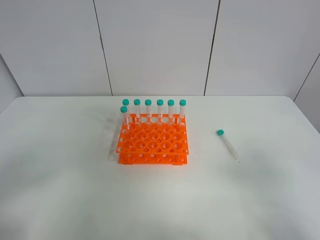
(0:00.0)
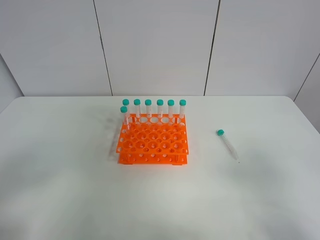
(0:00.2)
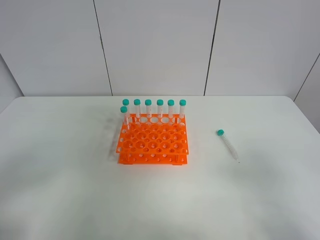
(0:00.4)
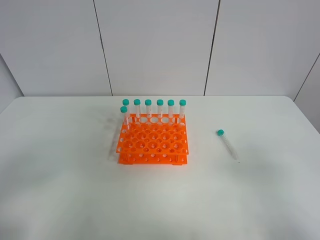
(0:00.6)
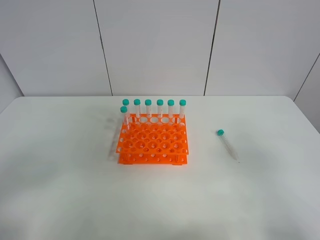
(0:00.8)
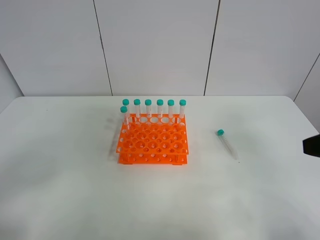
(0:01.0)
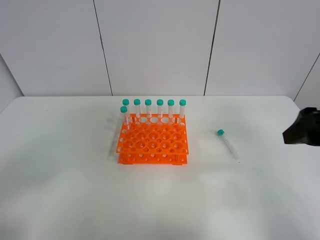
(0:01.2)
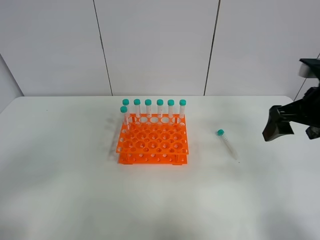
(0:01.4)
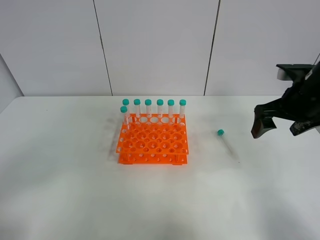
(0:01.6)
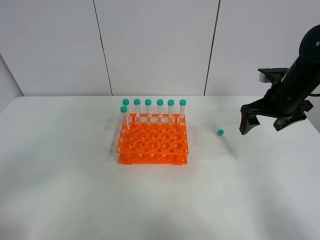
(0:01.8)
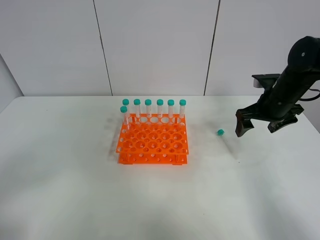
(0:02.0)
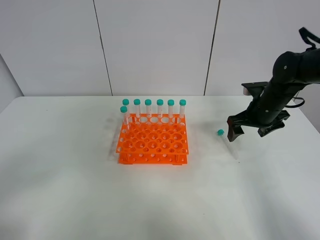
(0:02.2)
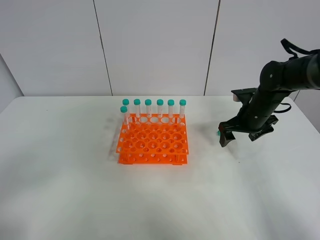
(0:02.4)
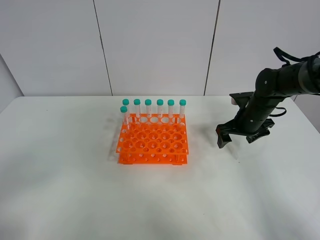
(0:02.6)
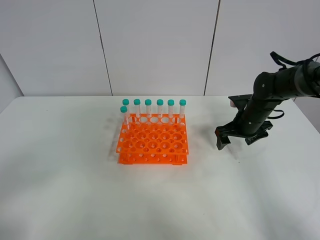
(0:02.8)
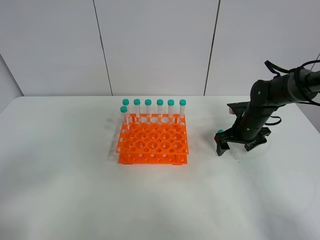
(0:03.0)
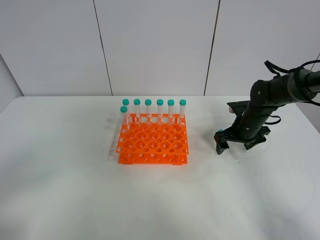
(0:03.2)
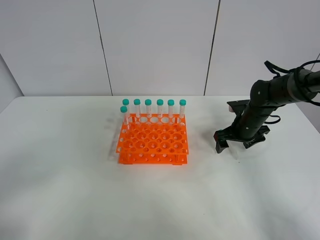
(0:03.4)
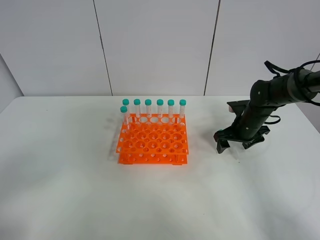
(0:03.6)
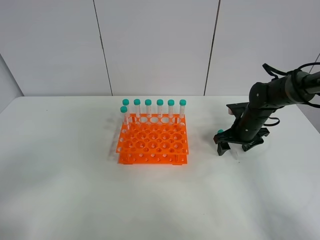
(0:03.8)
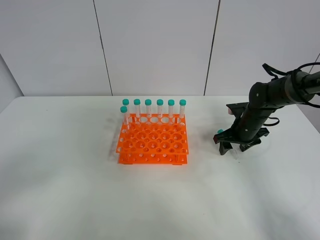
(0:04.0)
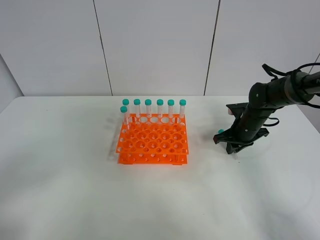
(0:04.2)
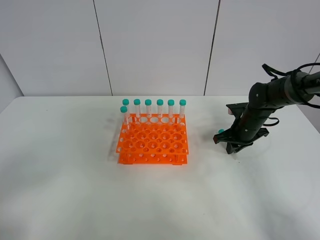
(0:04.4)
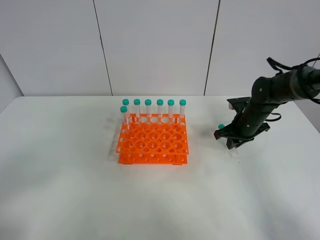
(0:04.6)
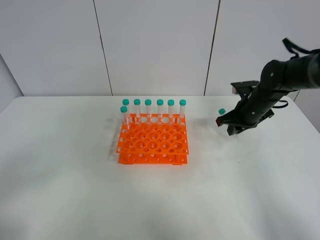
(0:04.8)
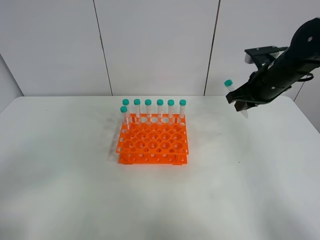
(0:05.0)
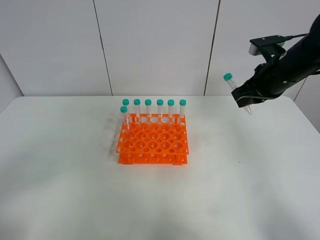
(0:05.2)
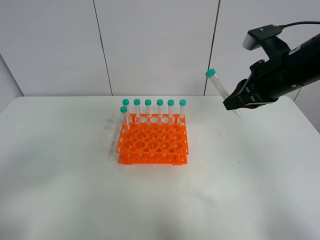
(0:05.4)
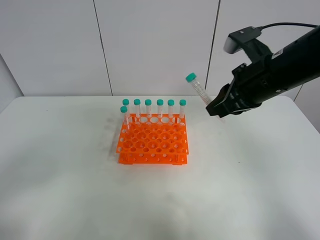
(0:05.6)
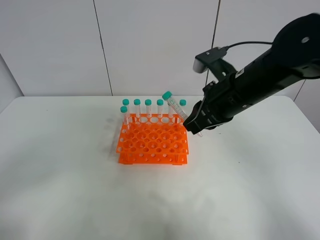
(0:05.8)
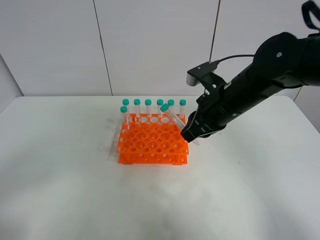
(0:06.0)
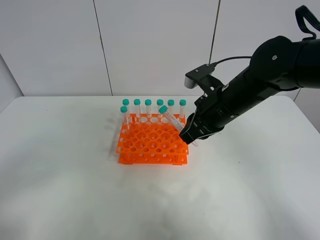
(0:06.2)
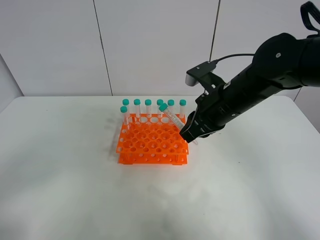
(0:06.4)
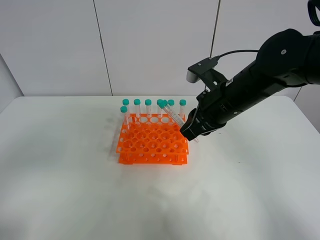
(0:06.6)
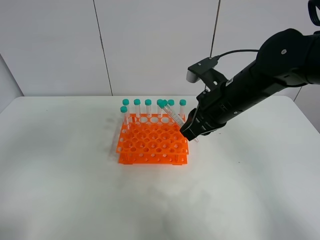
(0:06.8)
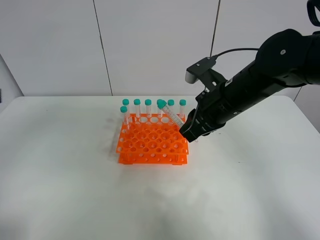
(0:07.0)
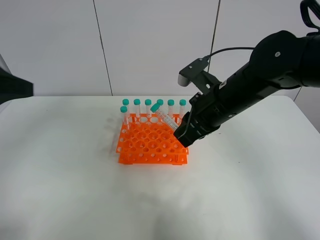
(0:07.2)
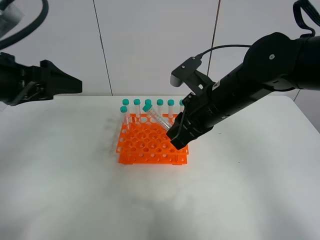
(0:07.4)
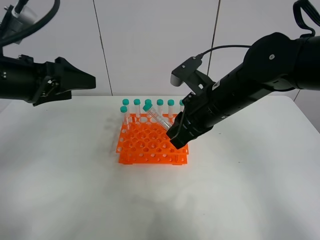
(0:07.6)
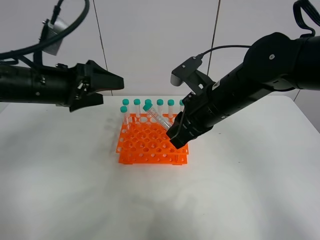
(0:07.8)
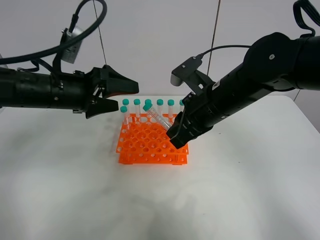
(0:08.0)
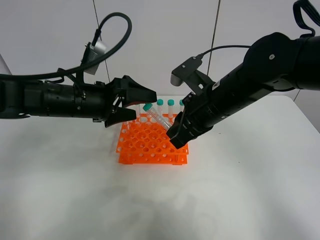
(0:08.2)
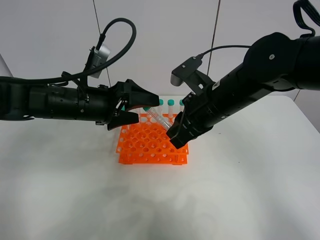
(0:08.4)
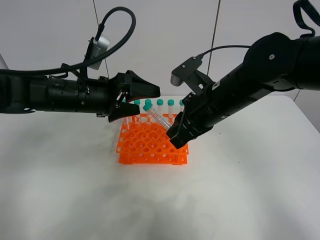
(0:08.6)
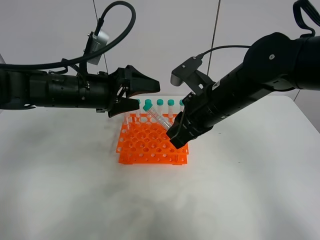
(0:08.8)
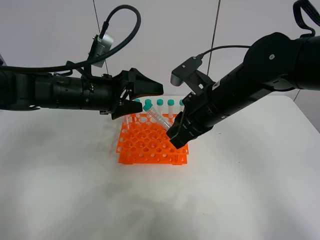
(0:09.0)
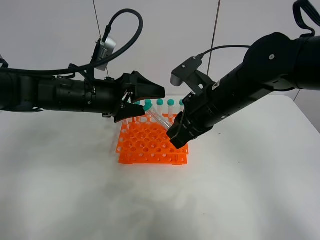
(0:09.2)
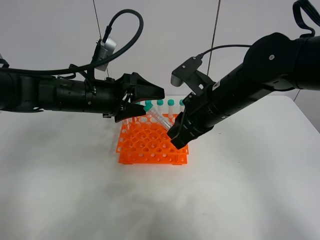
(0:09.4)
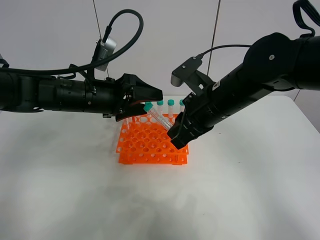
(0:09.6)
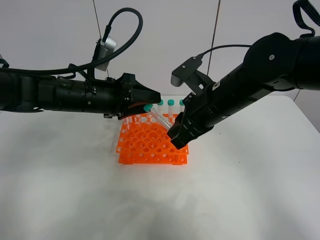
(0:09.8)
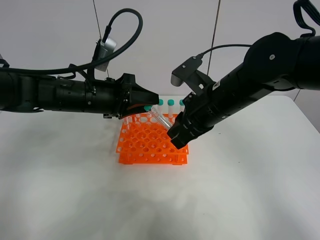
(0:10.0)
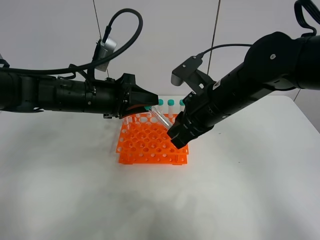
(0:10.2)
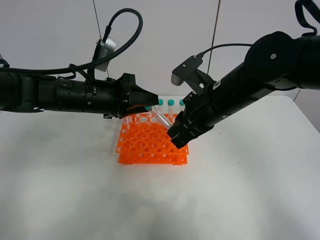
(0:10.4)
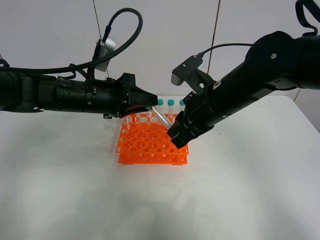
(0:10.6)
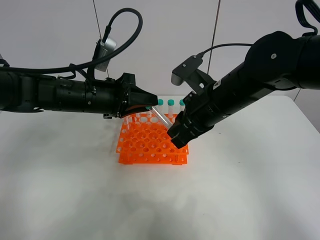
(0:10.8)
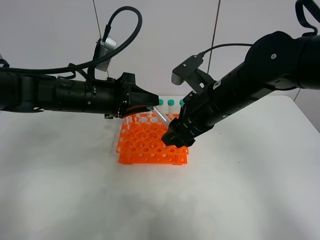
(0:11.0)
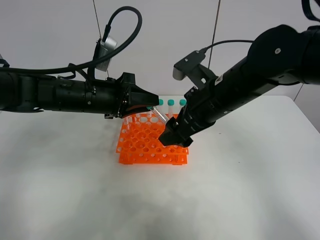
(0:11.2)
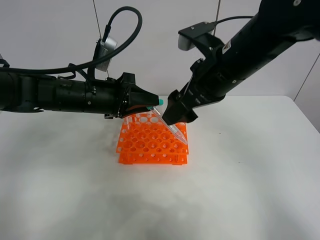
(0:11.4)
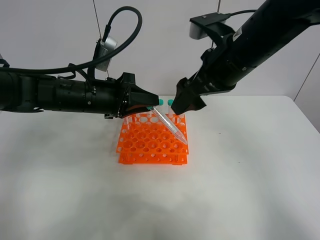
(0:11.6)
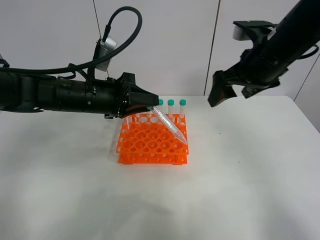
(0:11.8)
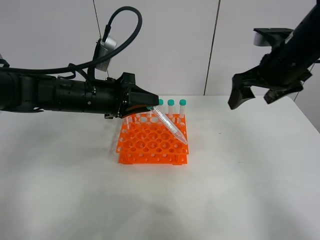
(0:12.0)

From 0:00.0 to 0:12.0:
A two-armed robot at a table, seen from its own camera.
Task of the whole recording: Put the test tube on the table back onto the test tube rack.
Step, from 0:00.0 to 0:04.8: Pick up the test tube with the right gripper.
Step, from 0:05.0 to 0:11.6: Move the test tube from the right gripper to the left gripper.
From 0:00.0 to 0:01.6: The right gripper shifts about 30 cm forward.
From 0:01.6 to 0:03.0: The right gripper moves downward and forward, approximately 20 cm.
From 0:03.0 to 0:04.4: The right gripper closes its fingers.
From 0:04.4 to 0:06.0: The right gripper moves upward, to the left and backward, some 20 cm.
From 0:06.0 to 0:07.6: The left gripper heads forward, covering some 25 cm.
From 0:07.6 to 0:09.0: The left gripper moves to the right and downward, some 10 cm.
From 0:09.0 to 0:10.4: The left gripper closes its fingers.
From 0:10.4 to 0:12.0: The right gripper travels to the right and upward by some 15 cm, and opens up.

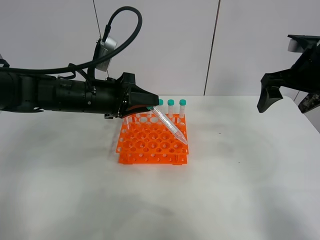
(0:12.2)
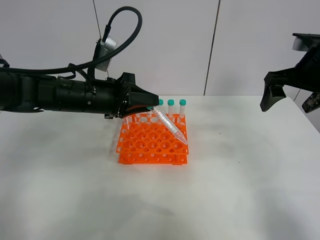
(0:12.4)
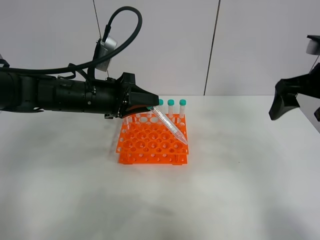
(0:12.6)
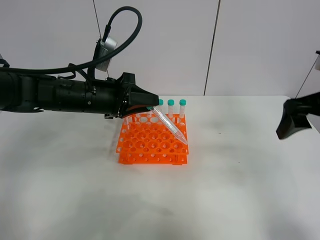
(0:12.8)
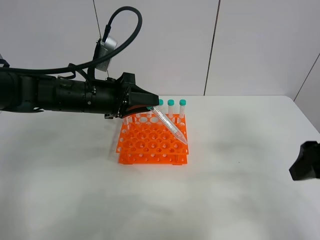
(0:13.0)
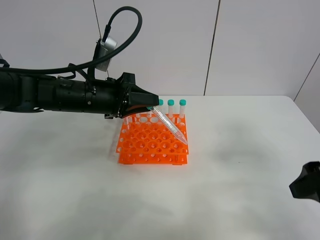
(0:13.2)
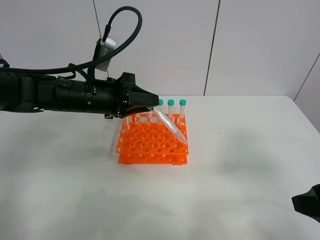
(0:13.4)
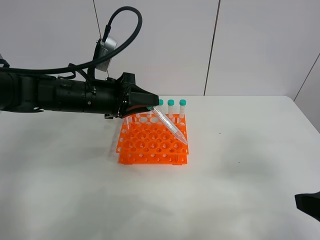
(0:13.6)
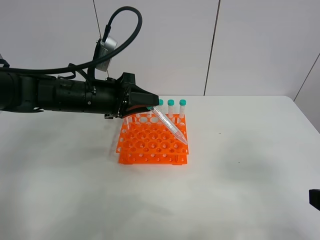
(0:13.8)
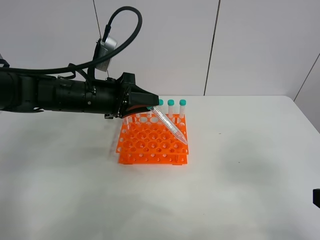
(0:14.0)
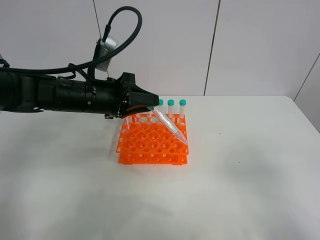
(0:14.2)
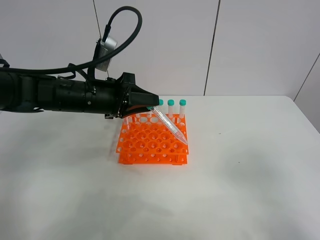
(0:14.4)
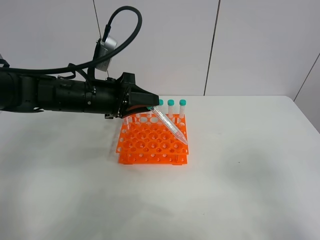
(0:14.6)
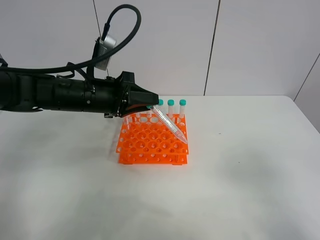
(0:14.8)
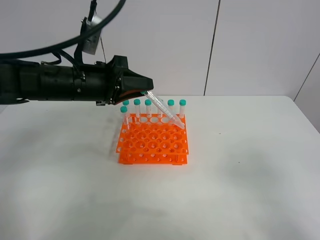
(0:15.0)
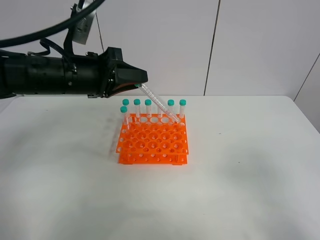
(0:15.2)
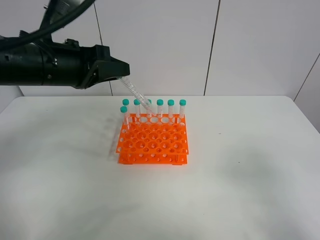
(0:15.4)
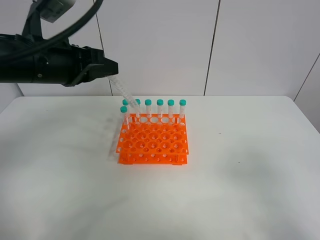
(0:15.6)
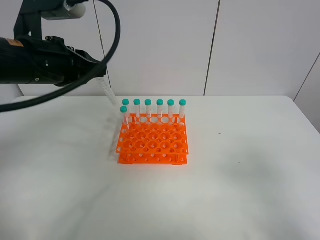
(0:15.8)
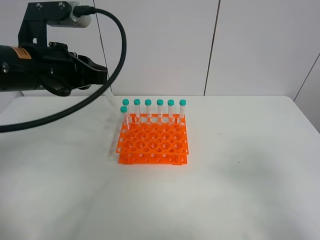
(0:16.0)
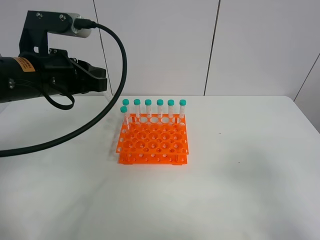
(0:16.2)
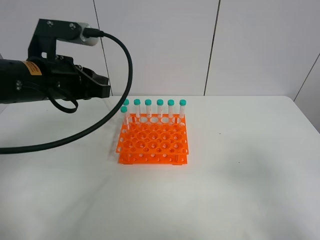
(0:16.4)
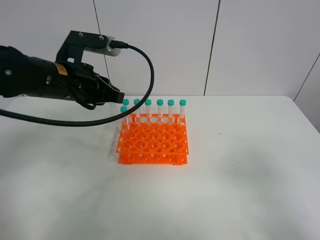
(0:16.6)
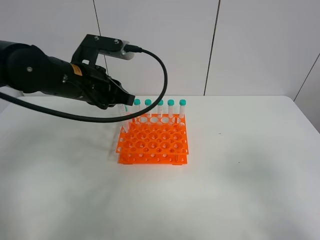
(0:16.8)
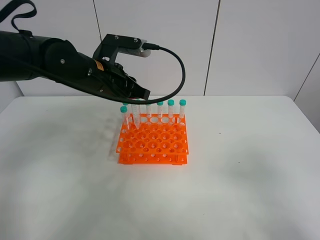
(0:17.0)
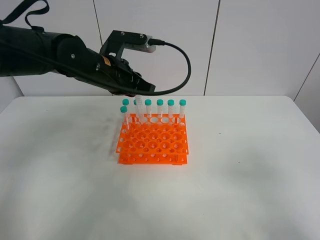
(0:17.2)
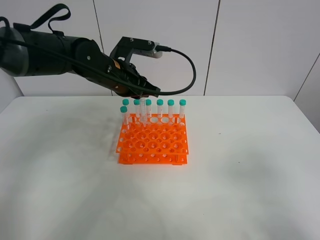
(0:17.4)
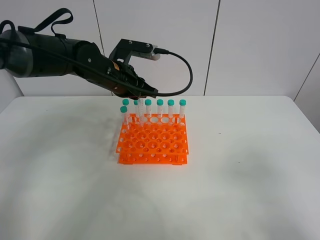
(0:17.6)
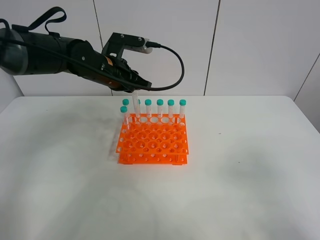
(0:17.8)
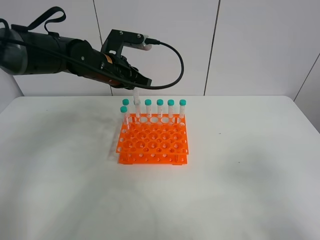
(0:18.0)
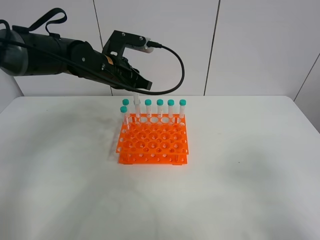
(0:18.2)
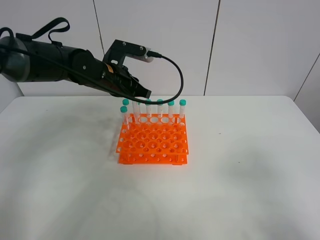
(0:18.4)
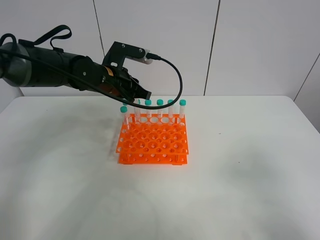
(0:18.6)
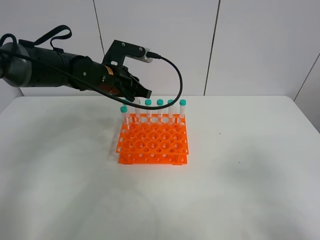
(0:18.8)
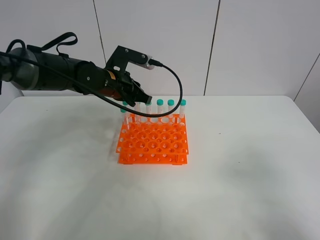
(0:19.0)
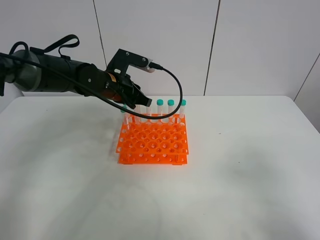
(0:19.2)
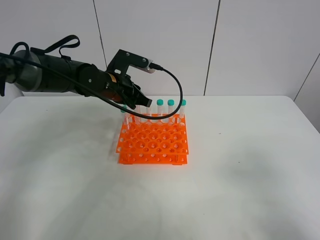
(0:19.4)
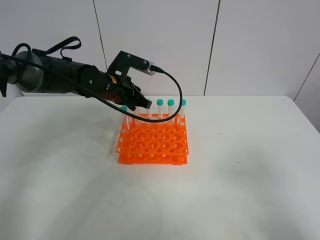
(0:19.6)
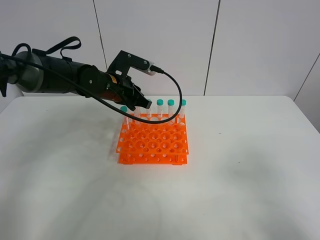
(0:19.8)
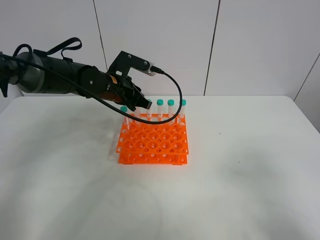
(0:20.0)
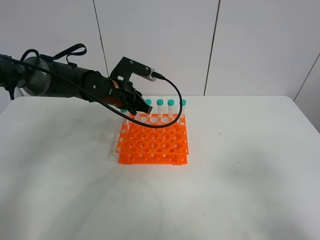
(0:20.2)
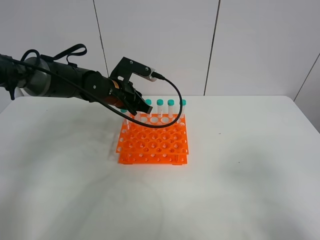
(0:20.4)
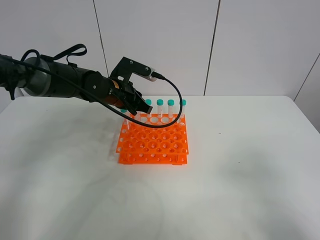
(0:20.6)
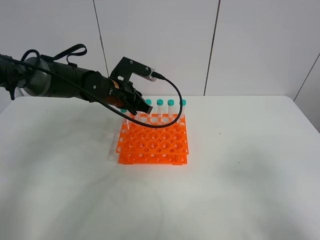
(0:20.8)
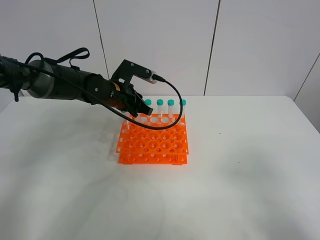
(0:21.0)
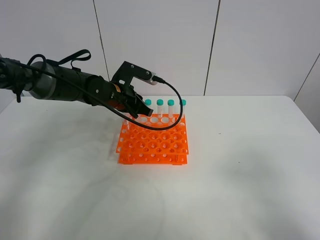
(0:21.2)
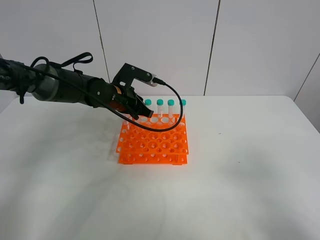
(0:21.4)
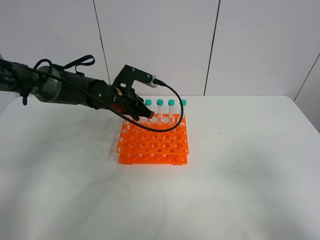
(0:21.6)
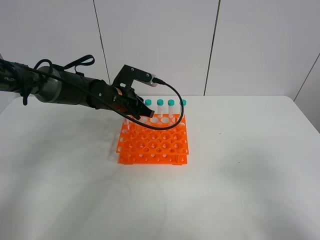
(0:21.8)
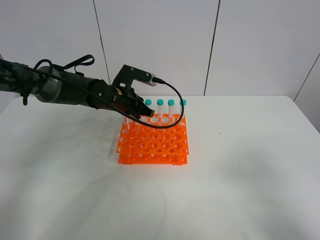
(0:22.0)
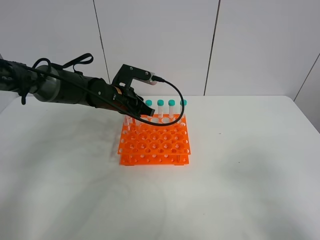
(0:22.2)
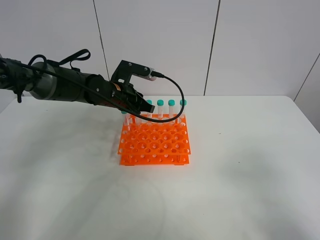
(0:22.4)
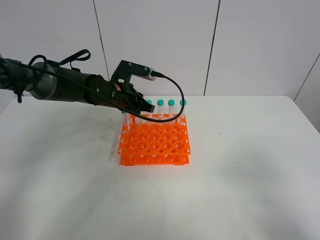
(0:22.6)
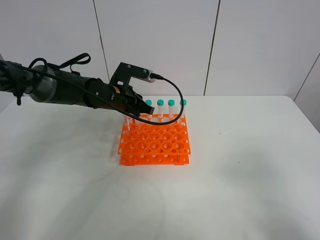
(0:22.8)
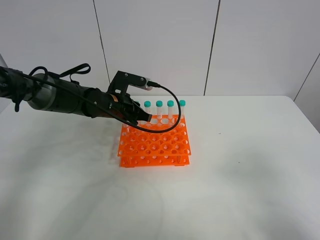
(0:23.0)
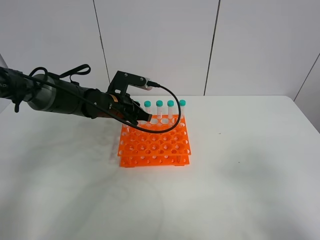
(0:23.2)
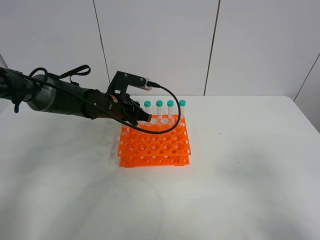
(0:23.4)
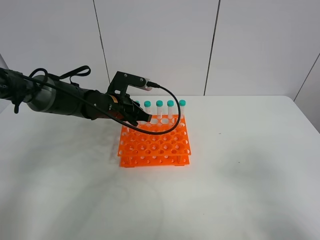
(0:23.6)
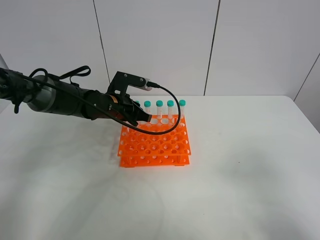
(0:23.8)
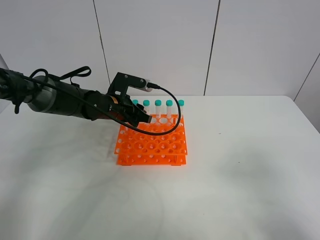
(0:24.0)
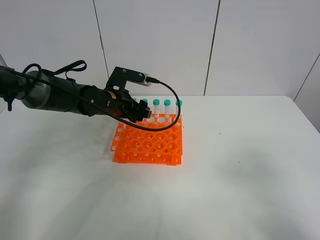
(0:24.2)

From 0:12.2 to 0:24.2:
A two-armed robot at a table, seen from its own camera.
Task of the whole recording: Put the test tube on the table back onto the test tube rack.
From 0:12.2 to 0:13.8: The right gripper moves backward, some 25 cm.
From 0:13.8 to 0:15.2: The left gripper is displaced upward by approximately 5 cm.
From 0:16.6 to 0:18.2: The left gripper moves forward, approximately 10 cm.
From 0:18.2 to 0:19.8: The grippers stay close to where they were, moving slightly.
From 0:19.8 to 0:22.6: There are only small adjustments of the grippers.
From 0:22.6 to 0:24.2: The left gripper opens its fingers.
